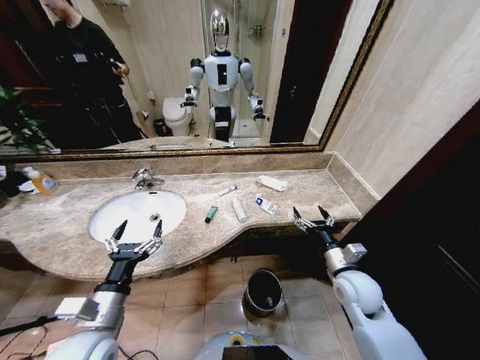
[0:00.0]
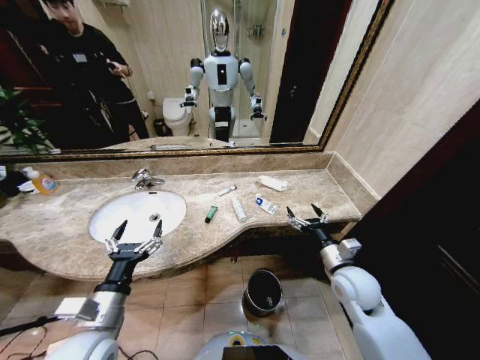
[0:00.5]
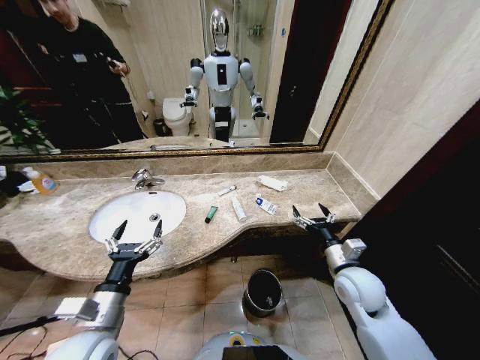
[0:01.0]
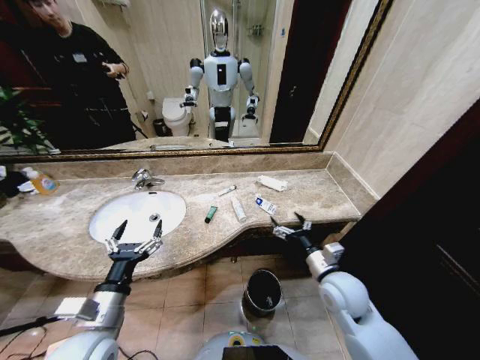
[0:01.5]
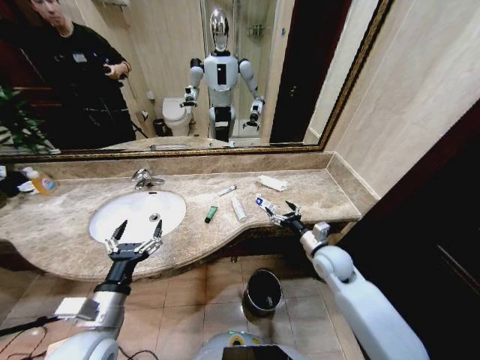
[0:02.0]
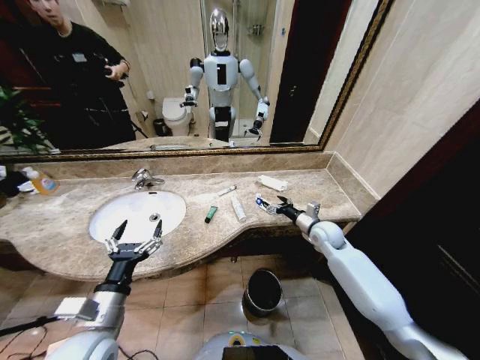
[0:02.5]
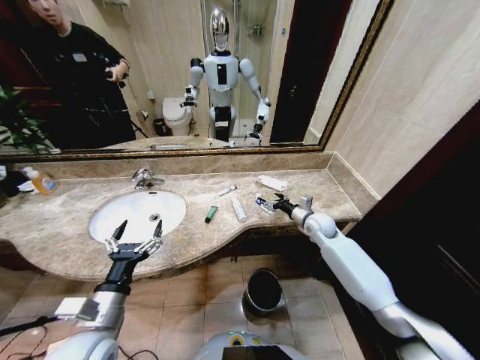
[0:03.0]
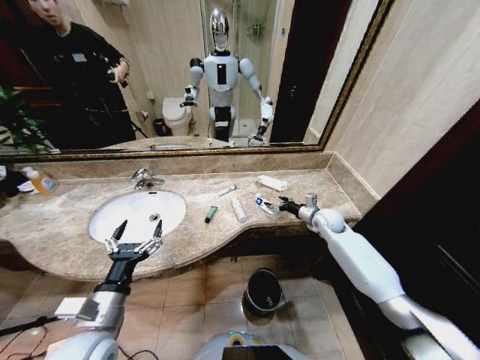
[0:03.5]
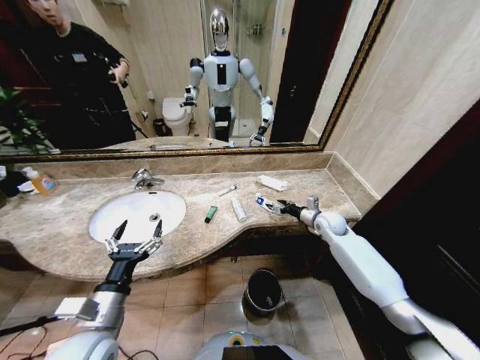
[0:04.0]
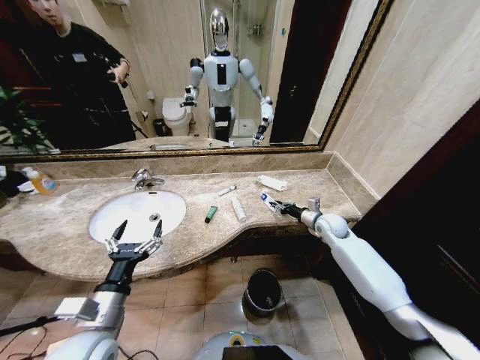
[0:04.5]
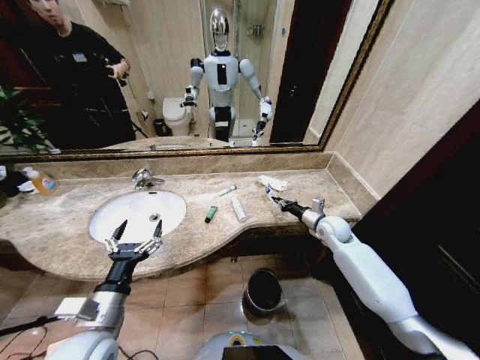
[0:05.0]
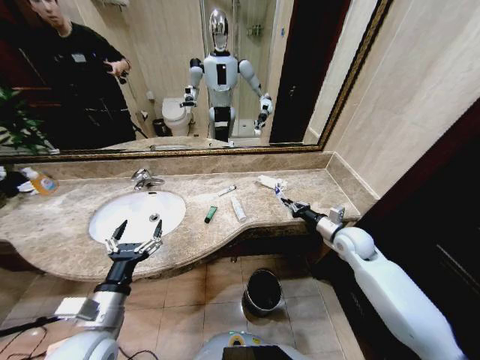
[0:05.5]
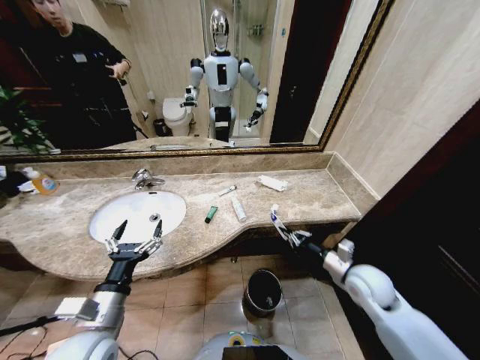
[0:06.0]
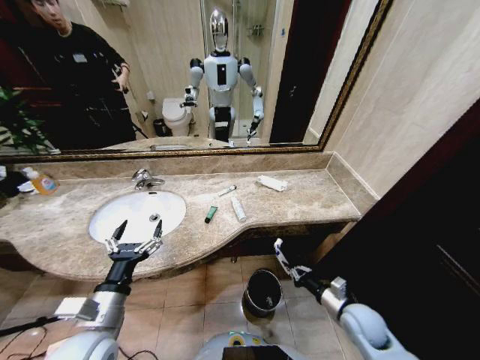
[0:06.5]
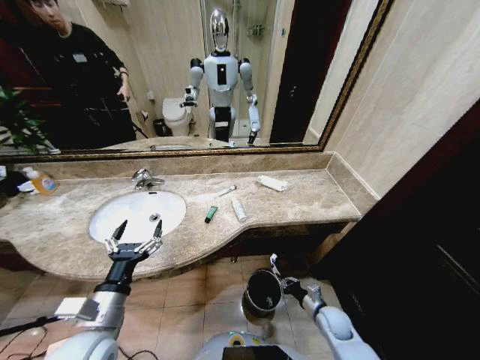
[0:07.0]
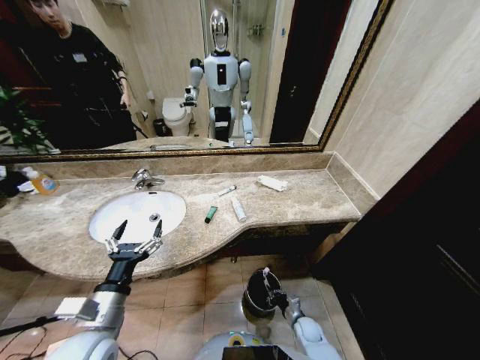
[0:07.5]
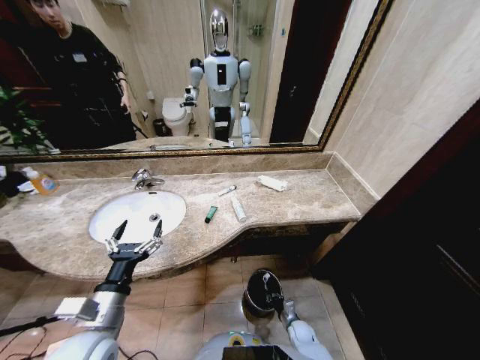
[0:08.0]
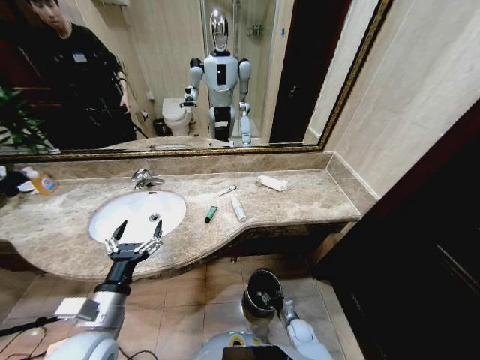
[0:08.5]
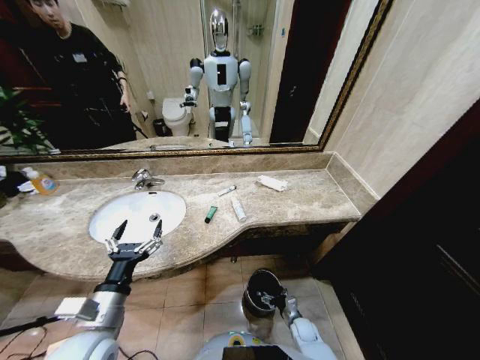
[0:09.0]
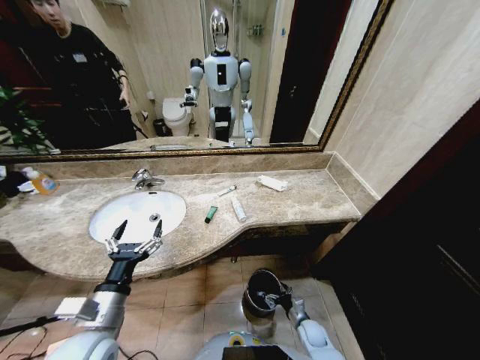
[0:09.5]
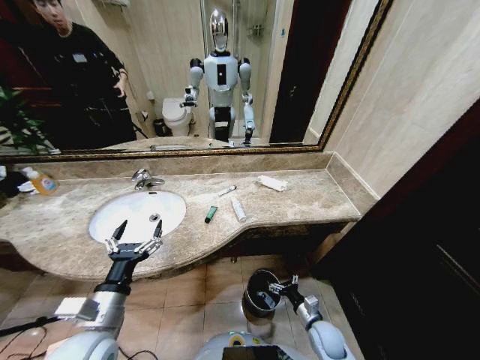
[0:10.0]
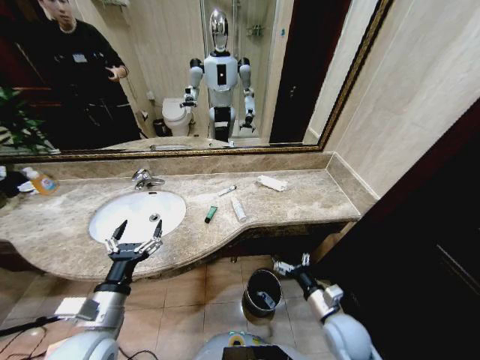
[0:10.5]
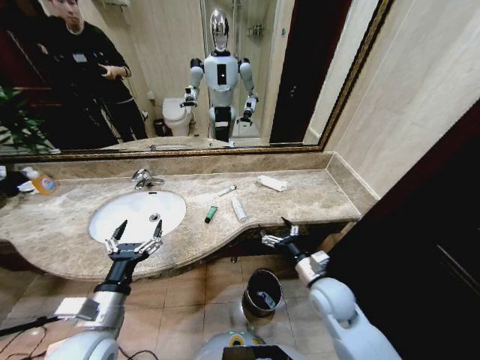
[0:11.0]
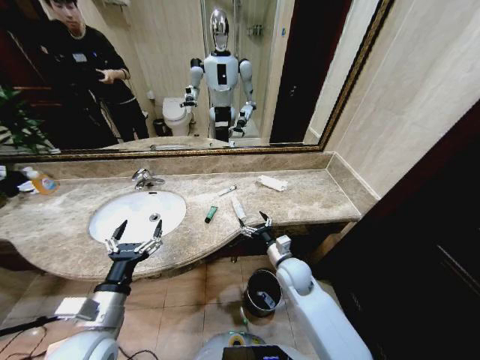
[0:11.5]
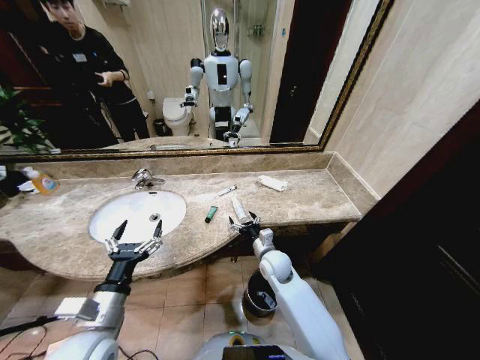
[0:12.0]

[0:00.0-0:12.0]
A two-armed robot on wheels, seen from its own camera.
Task of the whole recording: Pick up the trash from the sink and place it in the trash bin.
0:02.0 to 0:04.0: The right gripper moves forward and to the right, roughly 15 cm.
0:04.0 to 0:06.0: The right gripper heads backward, covering roughly 20 cm, and closes up.
0:06.0 to 0:08.0: The right gripper travels downward by some 35 cm.
0:08.0 to 0:10.0: The right gripper moves upward, roughly 15 cm, and opens up.
0:10.0 to 0:12.0: The right gripper is displaced forward, to the left and upward by approximately 25 cm.

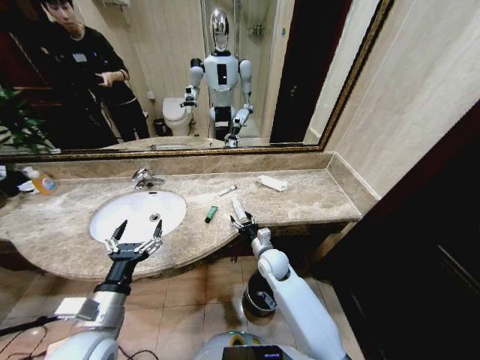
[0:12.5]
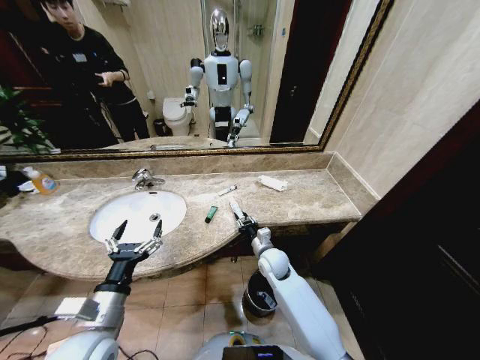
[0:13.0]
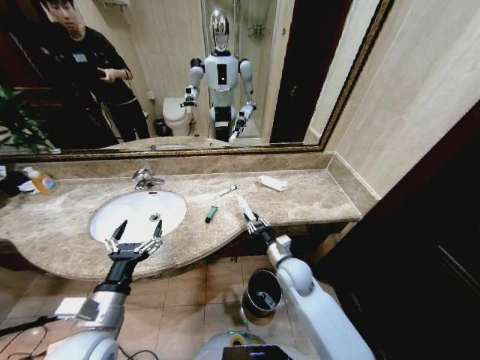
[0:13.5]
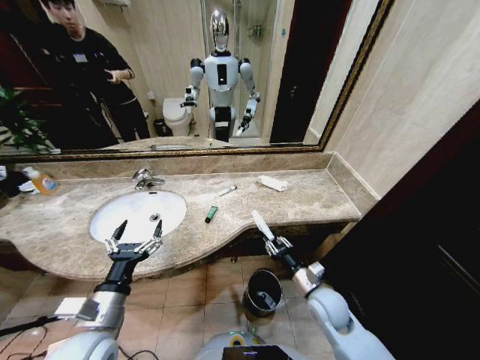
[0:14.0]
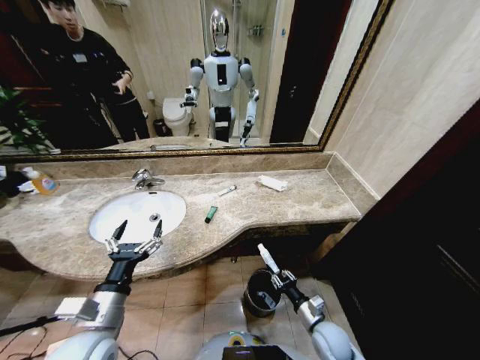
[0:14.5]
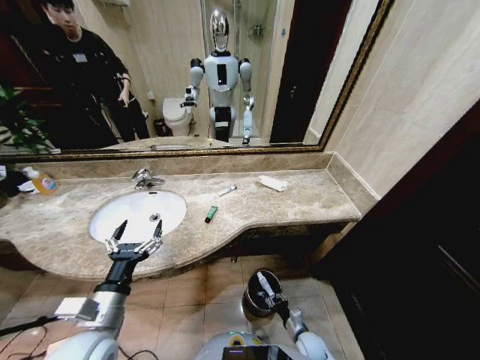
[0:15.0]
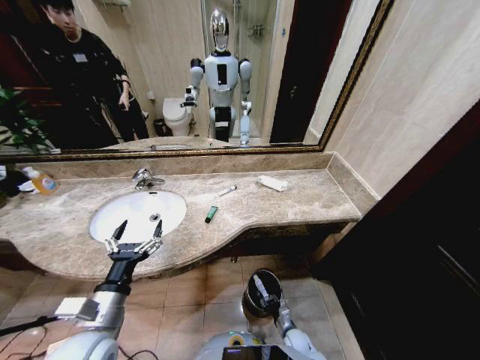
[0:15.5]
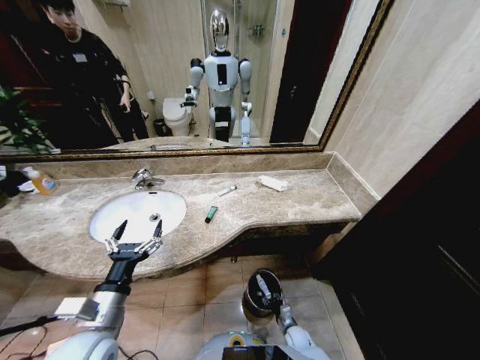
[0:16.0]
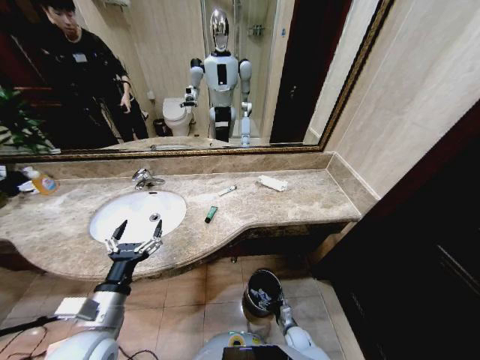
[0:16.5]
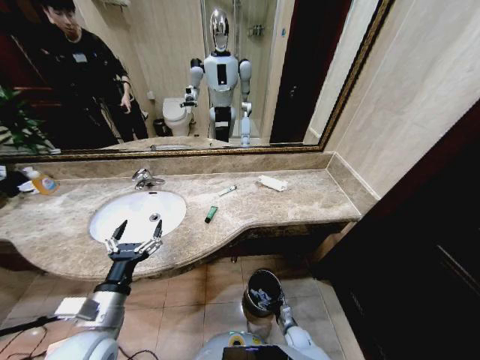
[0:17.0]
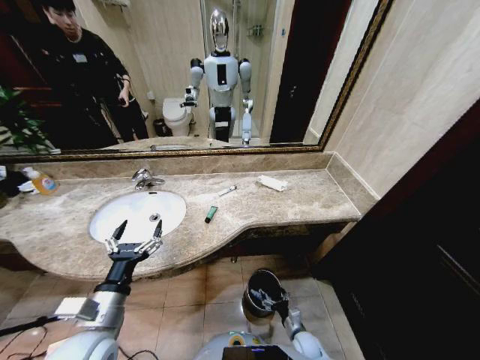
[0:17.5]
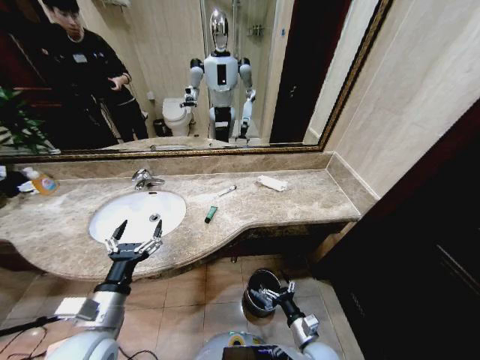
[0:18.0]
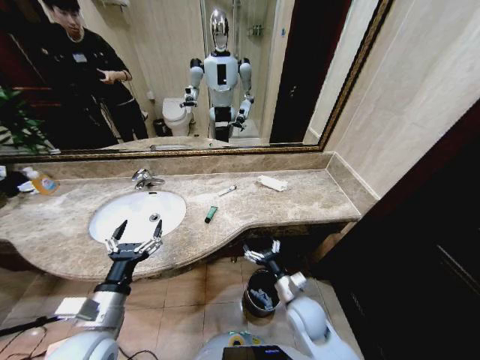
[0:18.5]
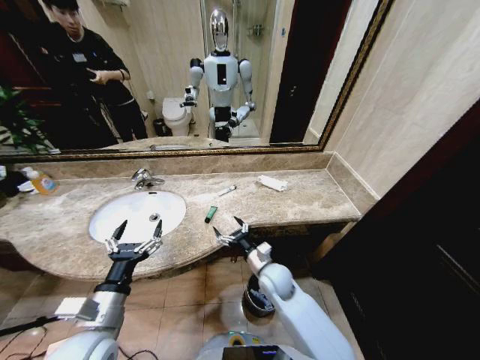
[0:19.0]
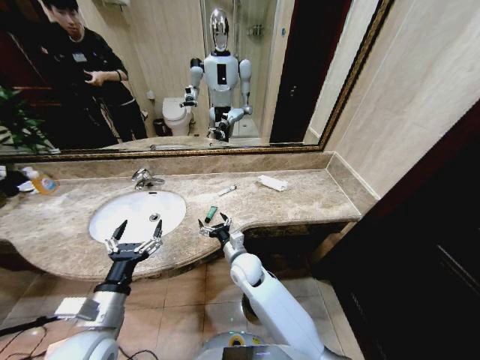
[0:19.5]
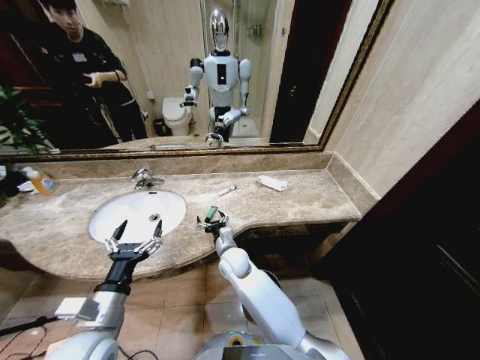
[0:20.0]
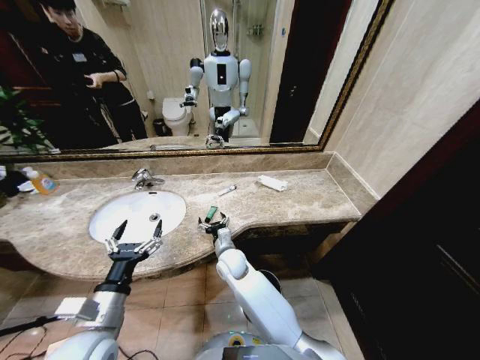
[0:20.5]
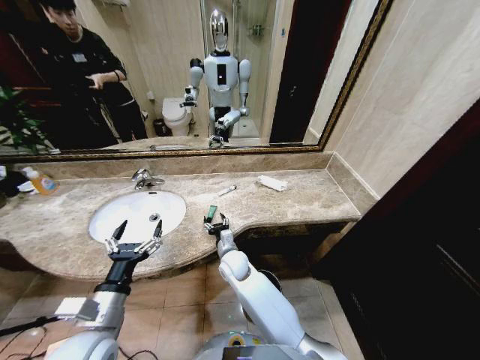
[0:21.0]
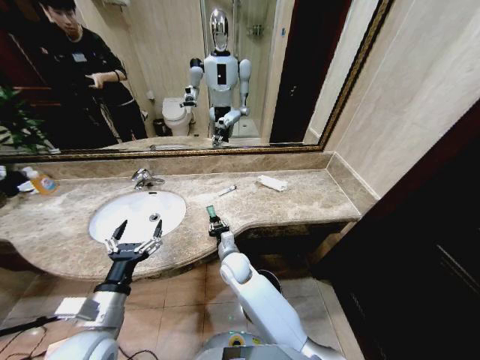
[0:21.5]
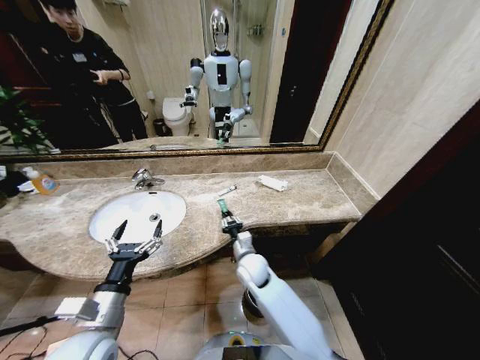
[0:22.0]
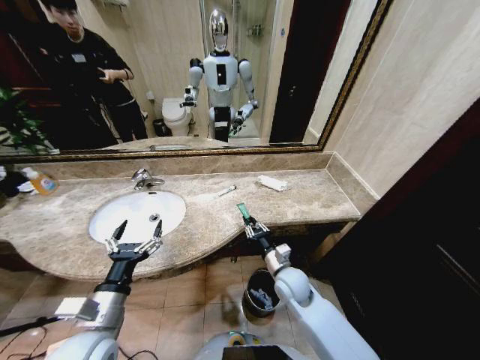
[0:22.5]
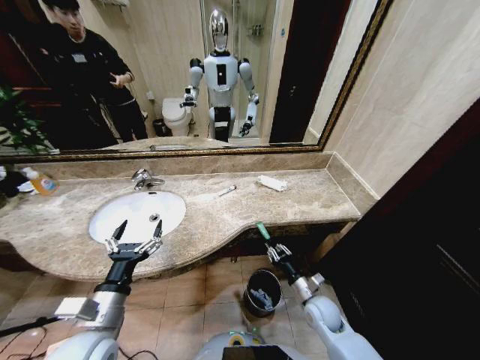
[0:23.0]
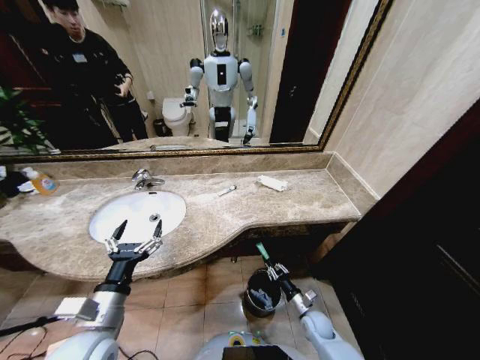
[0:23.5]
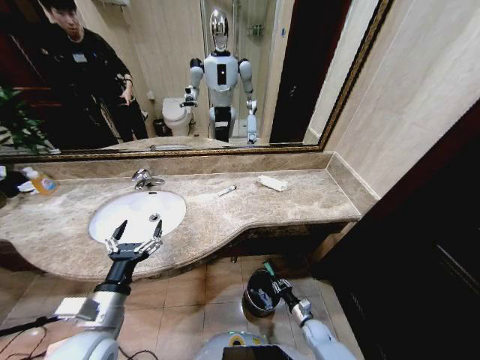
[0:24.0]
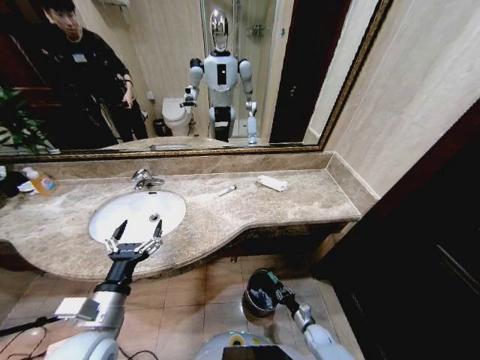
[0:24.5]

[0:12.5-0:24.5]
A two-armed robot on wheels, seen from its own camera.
Task of the whole recording: Pick up the trash from the sink and place it in the trash bin.
0:12.5 to 0:14.5: The right gripper shifts about 25 cm backward, to the right and downward, and closes.
0:14.5 to 0:16.5: The right gripper goes roughly 20 cm downward, and opens.
0:16.5 to 0:18.5: The right gripper moves upward, roughly 30 cm.
0:18.5 to 0:20.5: The right gripper goes some 25 cm to the left and forward.
0:20.5 to 0:22.5: The right gripper heads to the right and backward, covering about 20 cm, and closes its fingers.
0:22.5 to 0:24.5: The right gripper is displaced downward and to the right by some 35 cm.

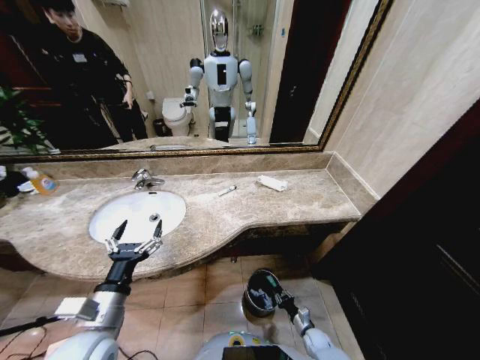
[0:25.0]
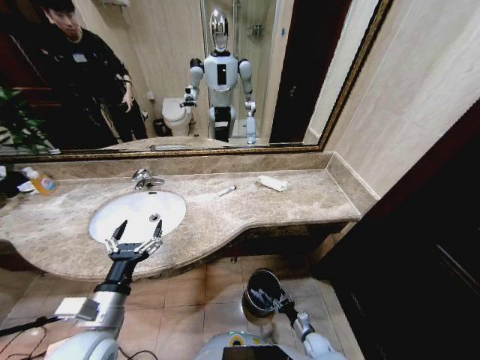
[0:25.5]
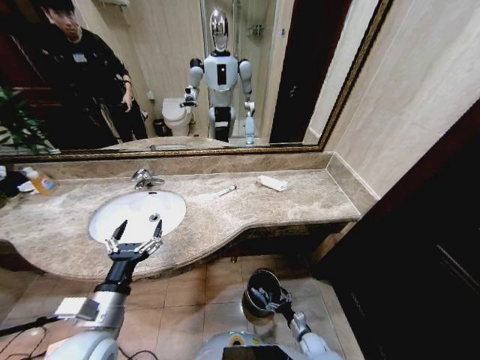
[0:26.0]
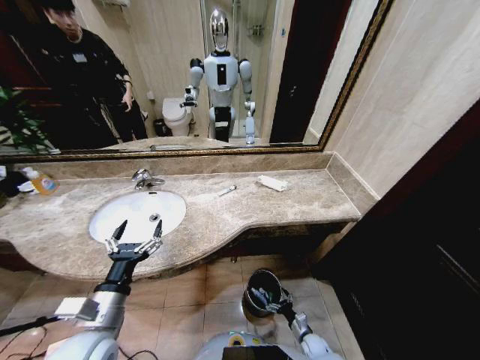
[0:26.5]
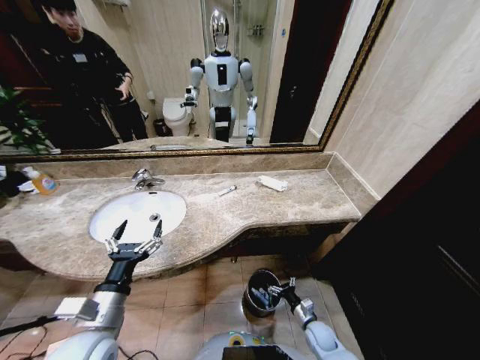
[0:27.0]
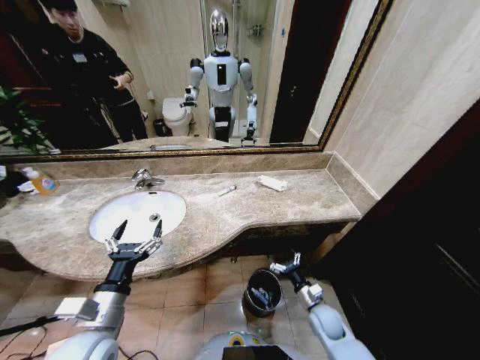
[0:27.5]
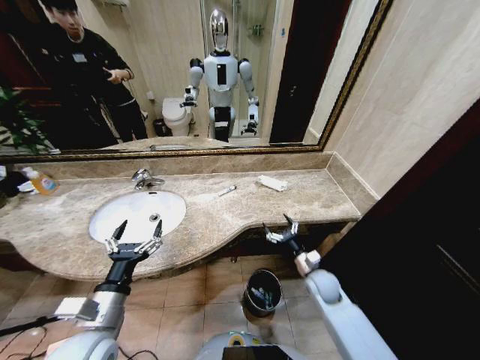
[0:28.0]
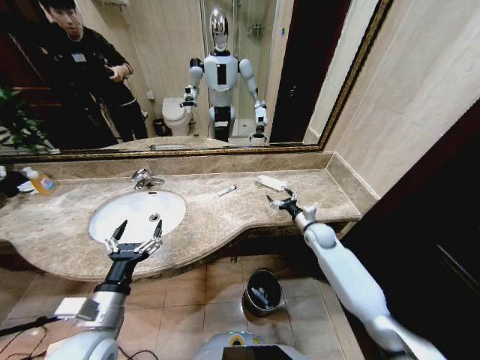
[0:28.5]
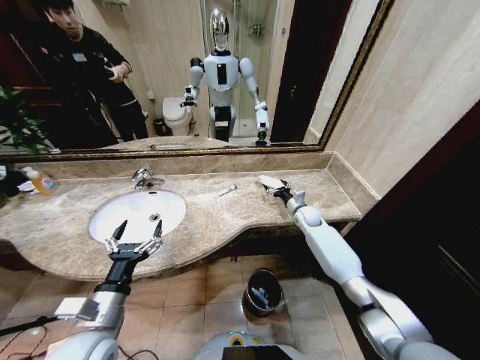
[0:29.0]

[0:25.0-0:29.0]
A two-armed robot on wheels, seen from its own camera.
Task of the whole recording: Pick up the trash from the sink and place it in the trash bin.
0:25.0 to 0:27.0: The right gripper shifts roughly 10 cm upward, and opens up.
0:27.0 to 0:29.0: The right gripper goes about 40 cm forward and upward.
